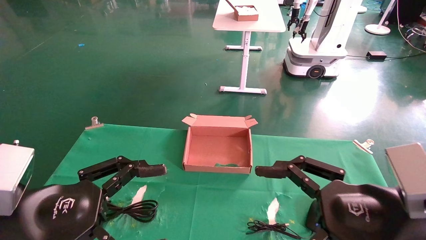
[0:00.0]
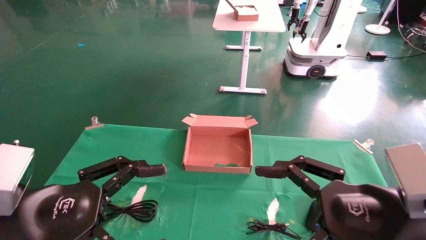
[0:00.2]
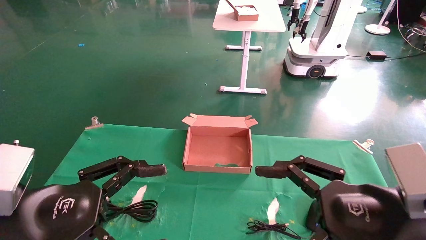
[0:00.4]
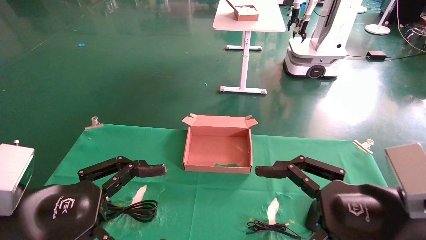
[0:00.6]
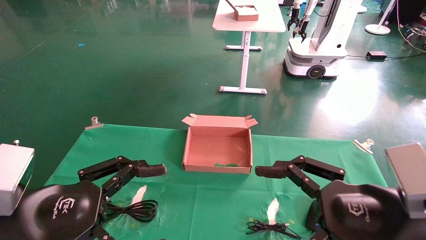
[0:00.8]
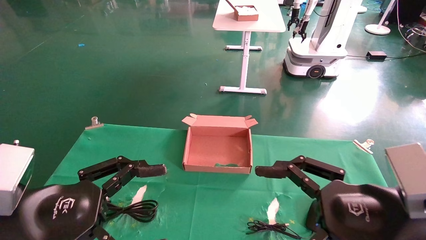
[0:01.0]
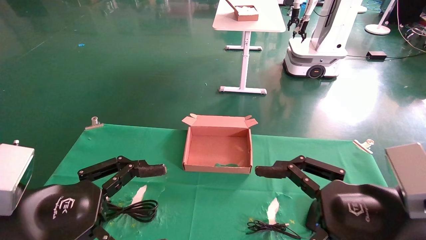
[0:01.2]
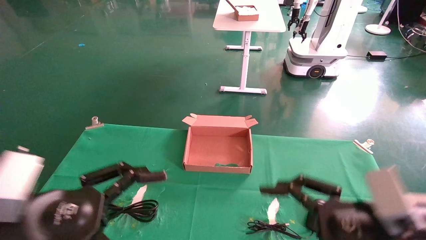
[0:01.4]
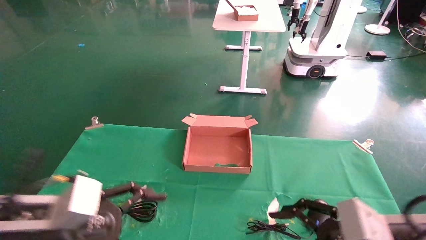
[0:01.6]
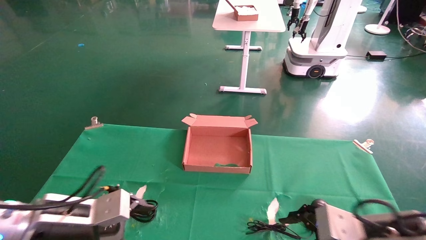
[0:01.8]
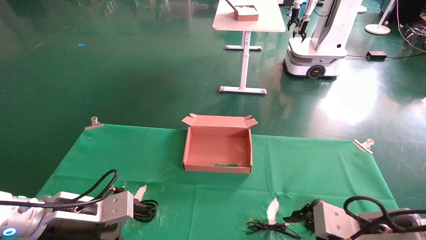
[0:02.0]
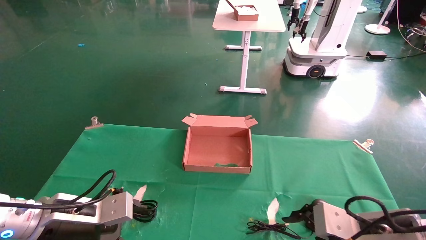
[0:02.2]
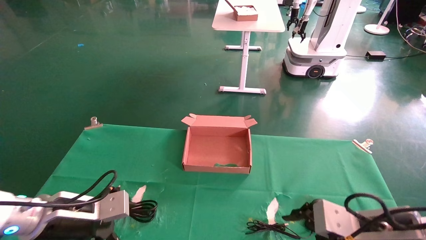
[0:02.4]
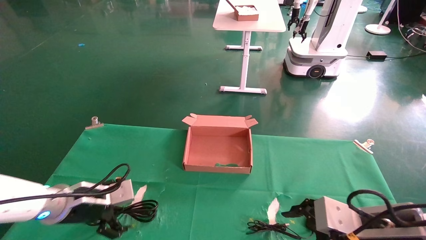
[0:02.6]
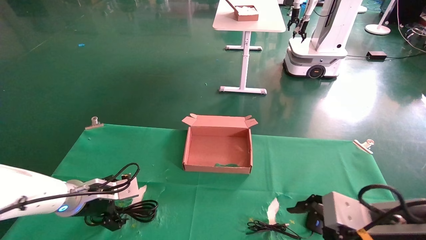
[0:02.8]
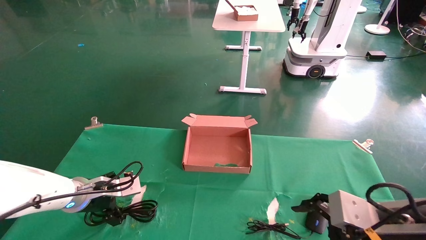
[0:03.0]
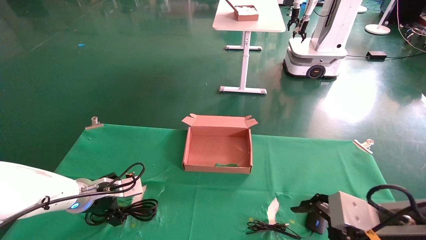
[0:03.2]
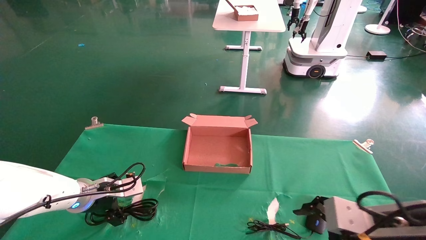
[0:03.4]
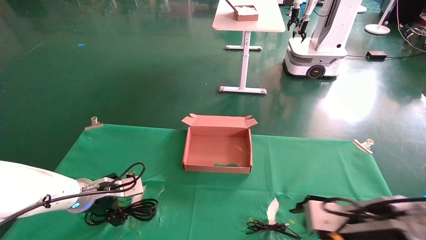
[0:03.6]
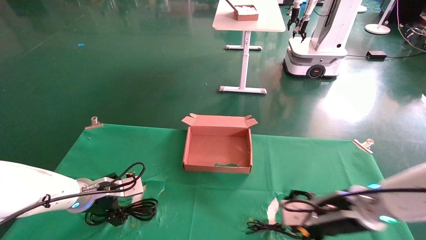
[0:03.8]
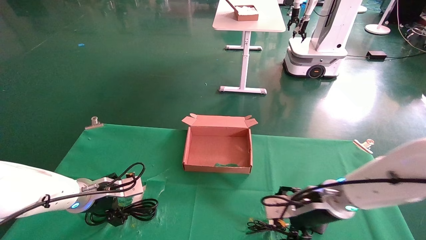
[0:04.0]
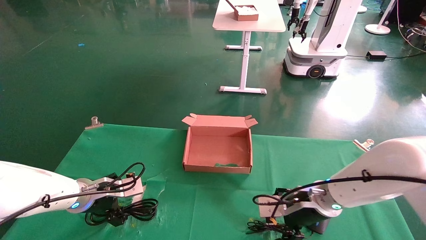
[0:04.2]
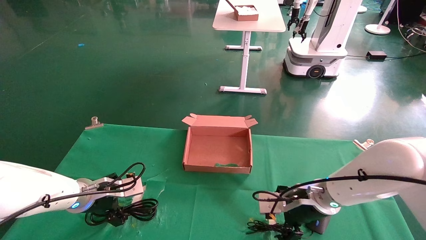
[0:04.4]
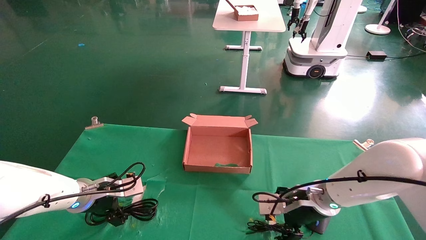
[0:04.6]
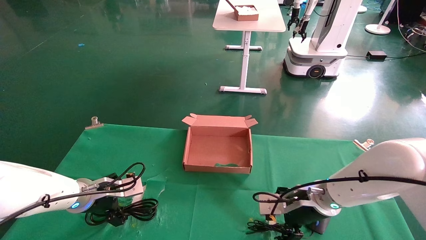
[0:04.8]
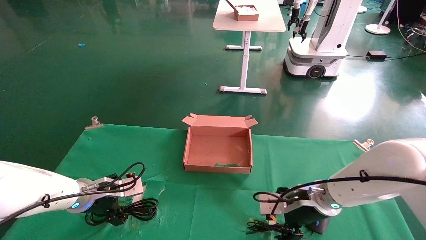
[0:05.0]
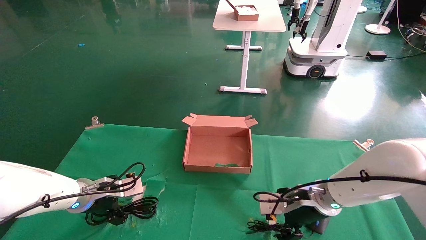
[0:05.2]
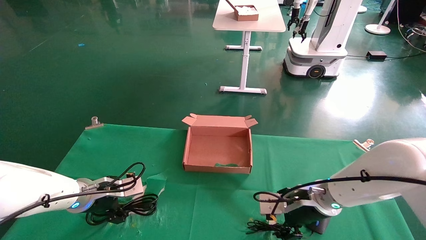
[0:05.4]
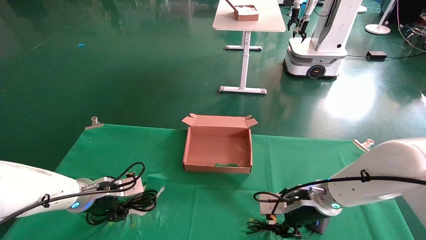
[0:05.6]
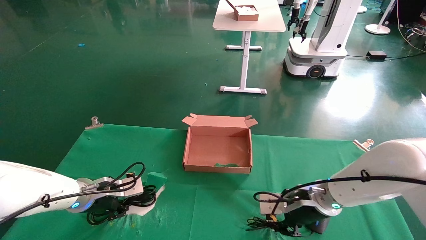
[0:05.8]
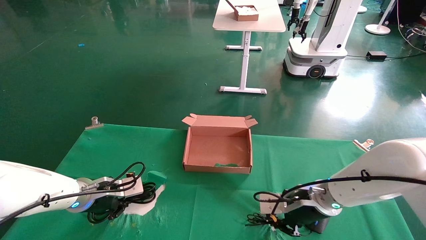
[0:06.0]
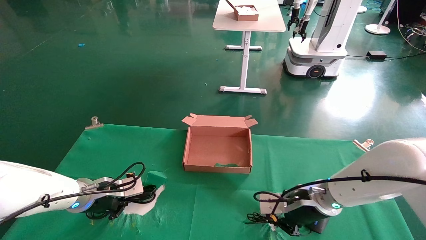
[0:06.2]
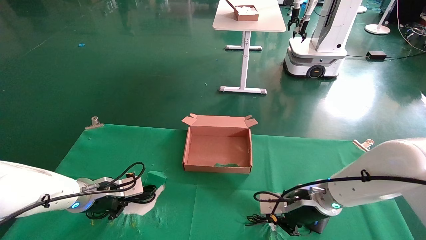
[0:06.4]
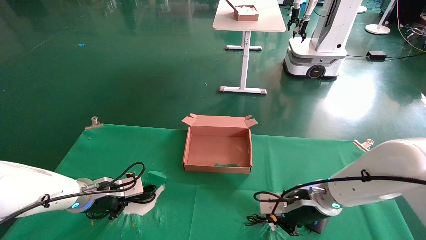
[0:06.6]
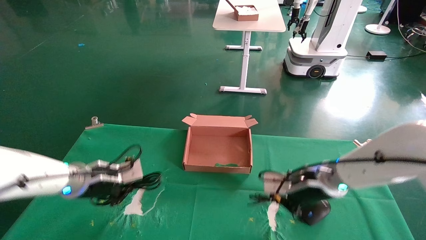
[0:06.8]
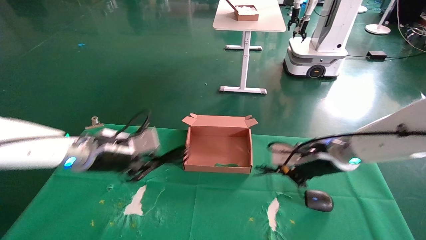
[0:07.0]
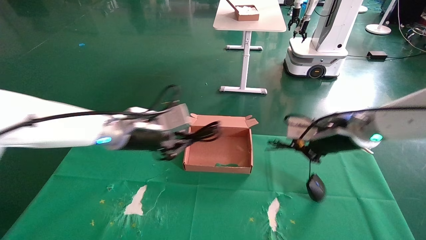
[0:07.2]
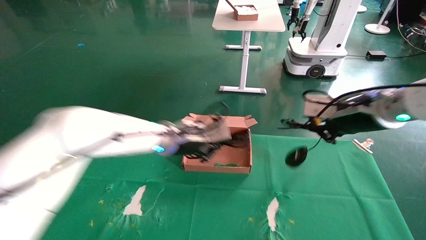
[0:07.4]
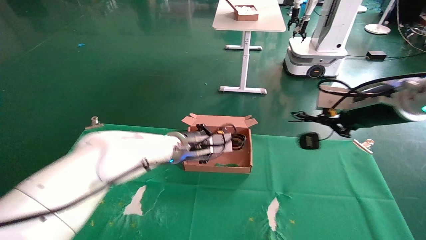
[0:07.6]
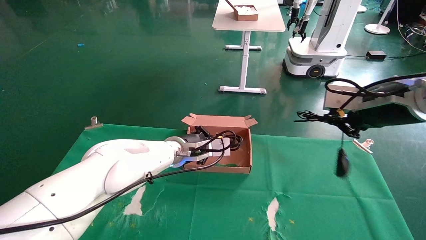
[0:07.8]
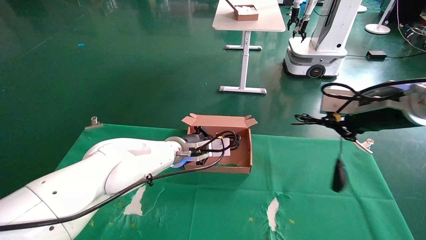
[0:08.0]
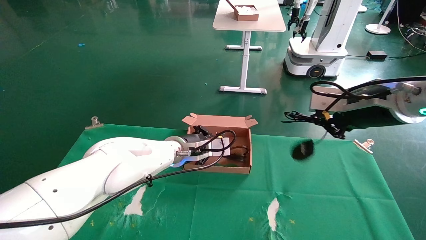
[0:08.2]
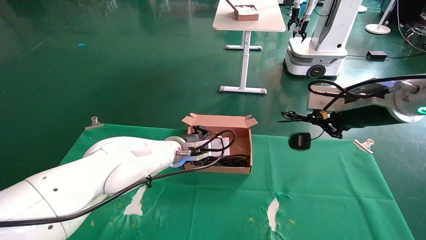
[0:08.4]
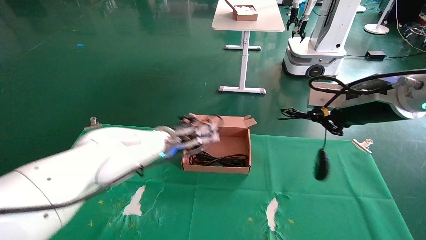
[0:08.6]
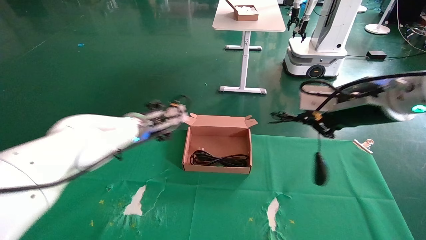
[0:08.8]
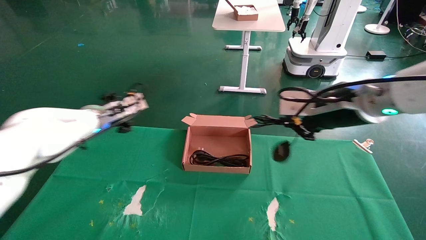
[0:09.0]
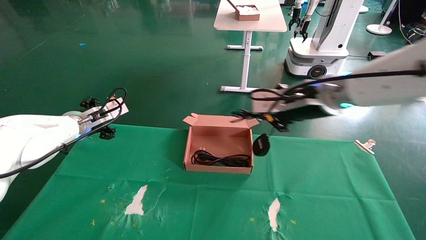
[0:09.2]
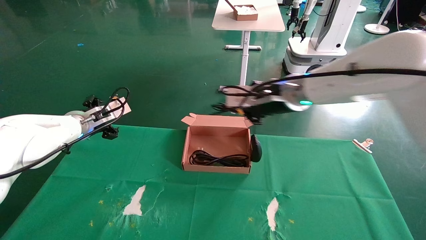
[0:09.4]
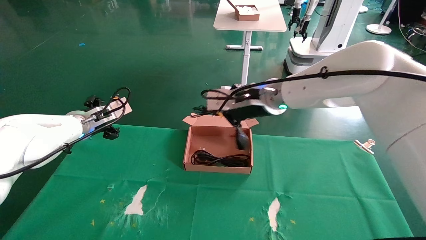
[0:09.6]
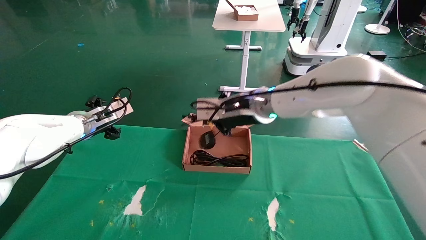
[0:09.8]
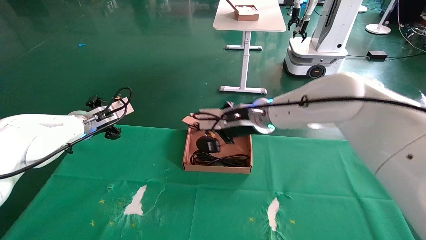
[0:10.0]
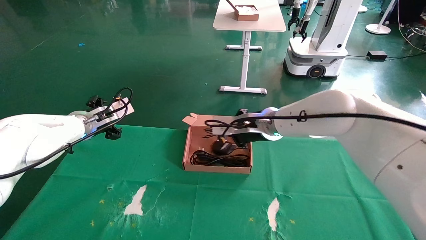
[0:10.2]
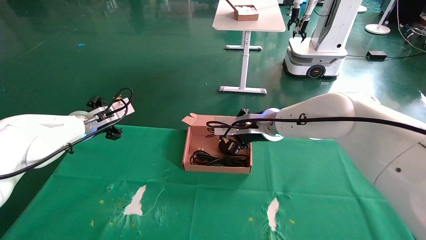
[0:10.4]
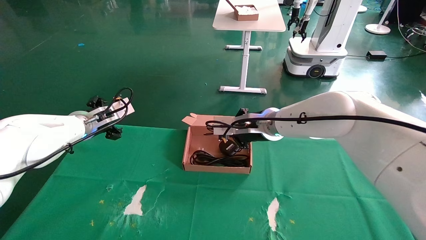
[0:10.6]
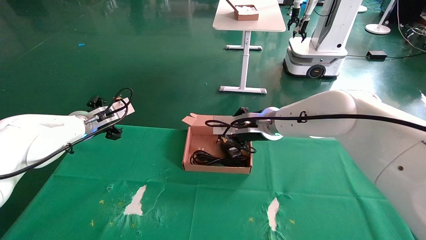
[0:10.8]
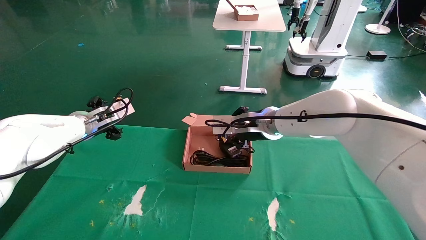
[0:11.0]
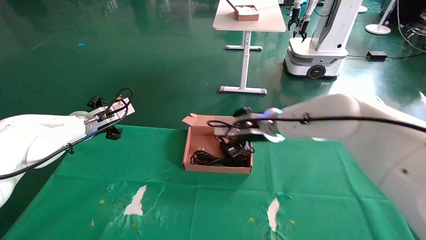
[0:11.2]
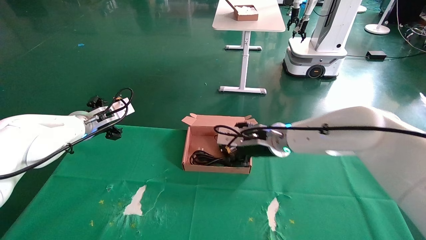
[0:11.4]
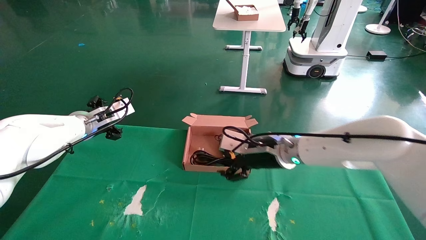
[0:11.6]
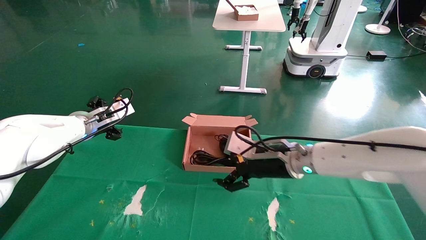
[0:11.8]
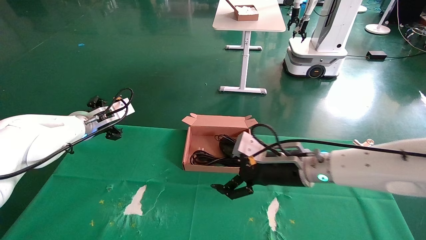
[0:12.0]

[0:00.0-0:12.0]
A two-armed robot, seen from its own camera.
Step, 0:01.8 to 0:07.4: Grab and lift both the mouse and power cord from the accessory packaging area at the same time.
0:00.0 to 0:01.6: The left gripper shifts some 5 cm forward; the right gripper heads downward, covering roughly 5 cm.
0:01.6 to 0:03.0: The left gripper shifts roughly 15 cm forward.
0:03.0 to 0:04.4: The right gripper shifts some 20 cm forward and to the left.
0:04.4 to 0:06.0: The left gripper closes its fingers. Meanwhile the right gripper closes up.
0:06.0 to 0:07.6: The right gripper goes some 25 cm upward and to the right. Meanwhile the left gripper travels to the right and upward by approximately 20 cm.
0:07.6 to 0:09.0: The left gripper moves to the left, some 20 cm, and opens up. Meanwhile the right gripper is displaced to the left by some 10 cm.
0:09.0 to 0:10.4: The right gripper goes approximately 20 cm to the left, forward and downward.
0:10.4 to 0:12.0: The right gripper is displaced backward, downward and to the right by some 10 cm, and opens its fingers.

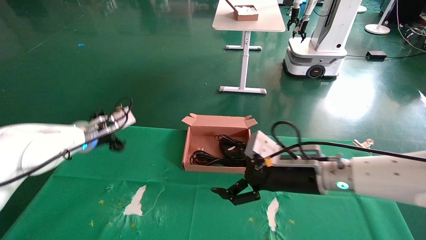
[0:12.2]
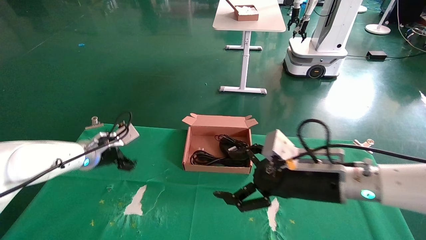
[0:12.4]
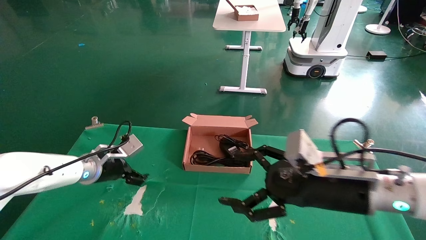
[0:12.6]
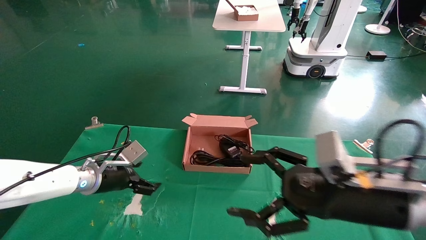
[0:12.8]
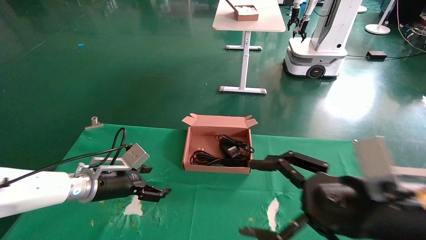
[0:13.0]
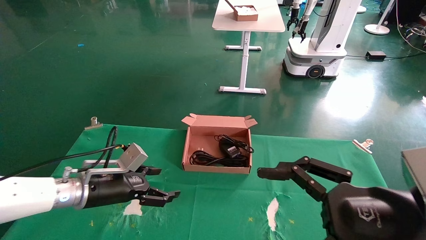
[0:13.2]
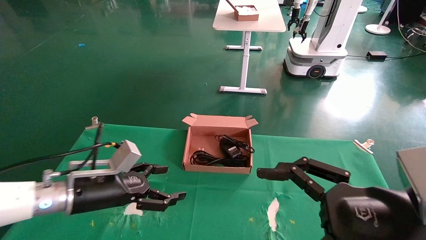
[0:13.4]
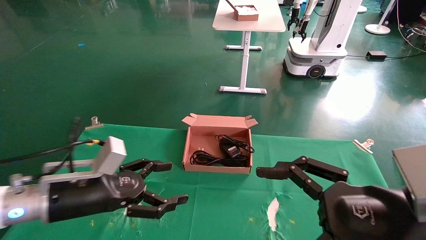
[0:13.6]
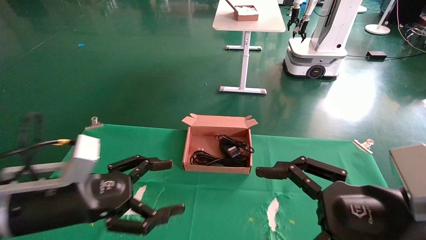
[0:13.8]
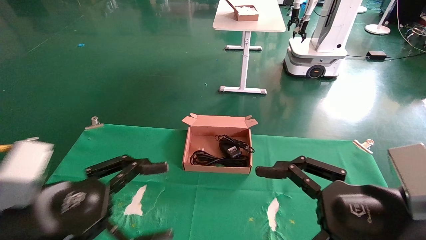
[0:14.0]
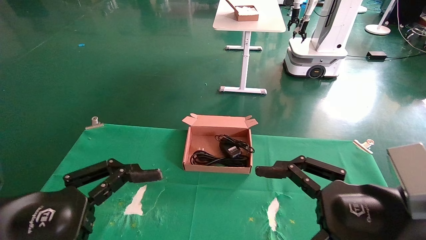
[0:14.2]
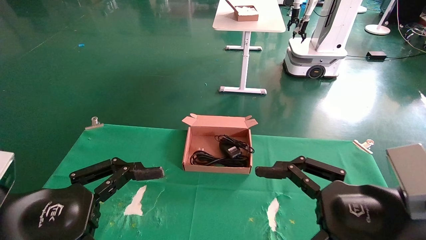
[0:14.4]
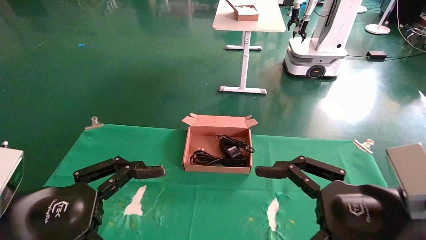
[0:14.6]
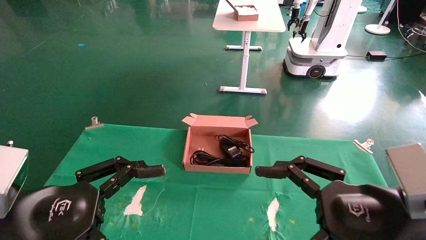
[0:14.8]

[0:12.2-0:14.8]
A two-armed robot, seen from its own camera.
0:12.2 to 0:13.4: The left gripper travels backward by some 15 cm. Meanwhile the right gripper moves backward and to the right, roughly 20 cm.
0:13.4 to 0:14.8: The left gripper travels backward by approximately 15 cm.
